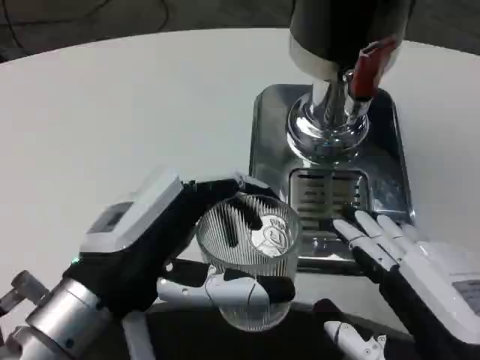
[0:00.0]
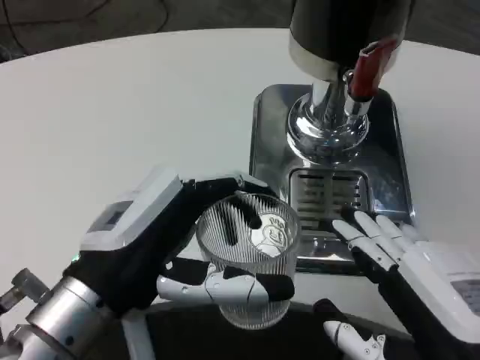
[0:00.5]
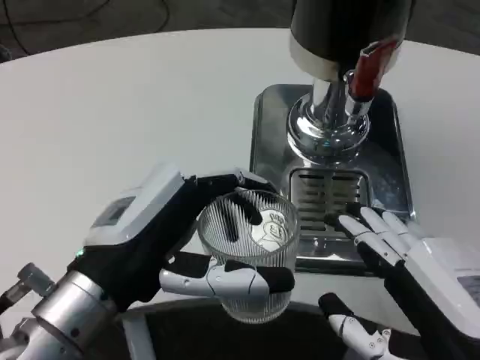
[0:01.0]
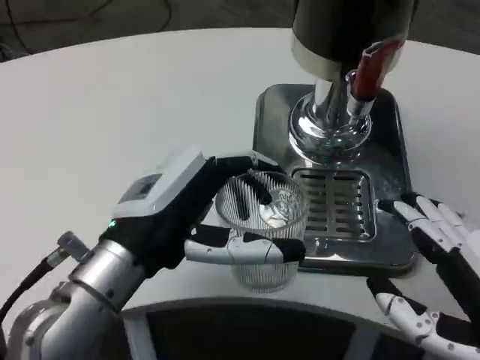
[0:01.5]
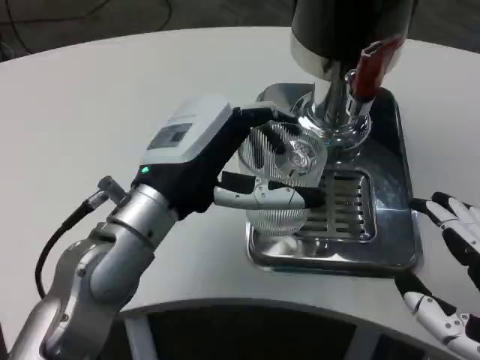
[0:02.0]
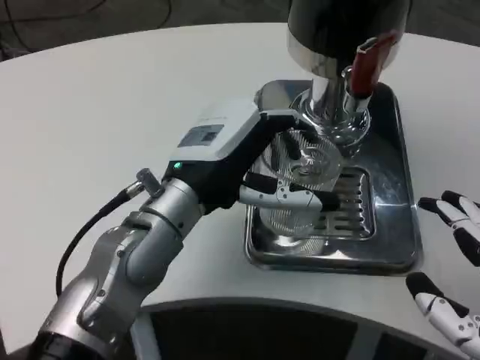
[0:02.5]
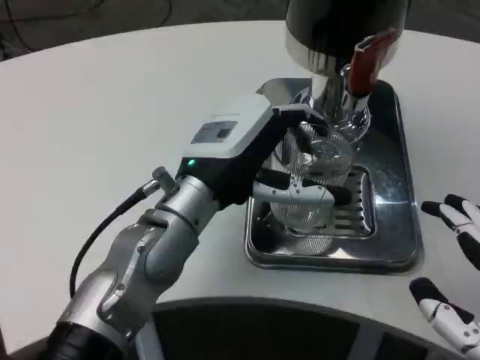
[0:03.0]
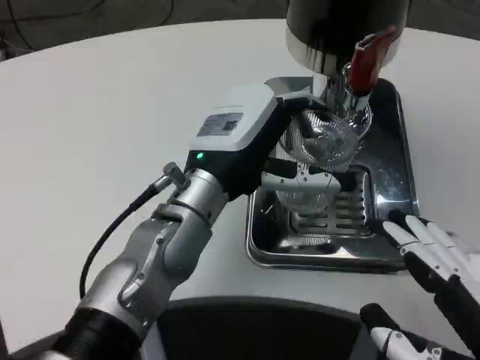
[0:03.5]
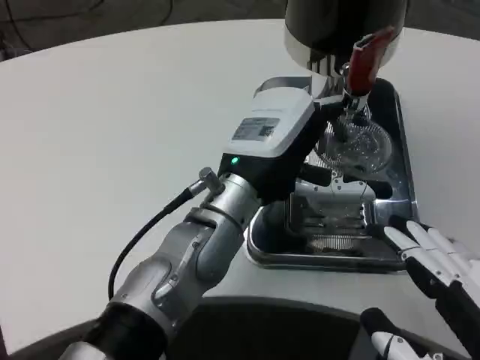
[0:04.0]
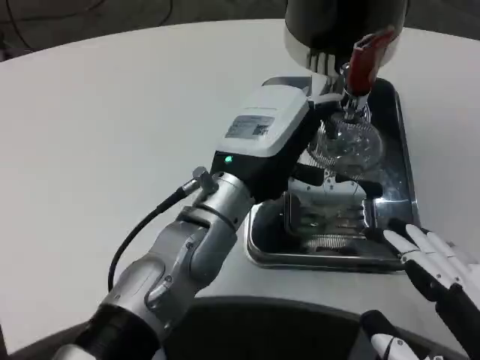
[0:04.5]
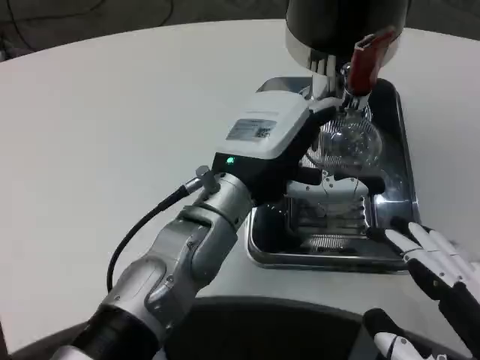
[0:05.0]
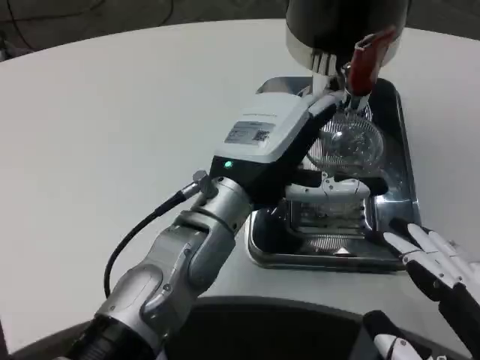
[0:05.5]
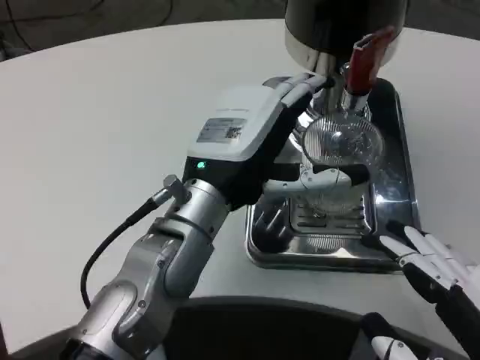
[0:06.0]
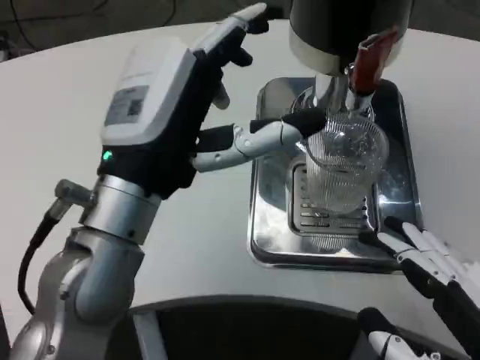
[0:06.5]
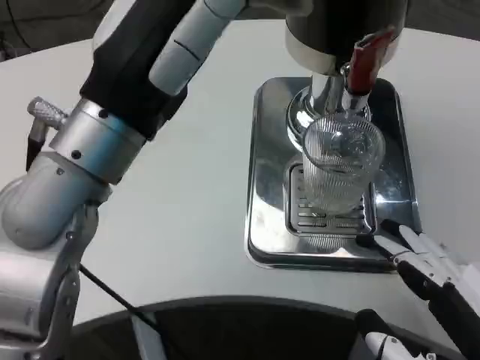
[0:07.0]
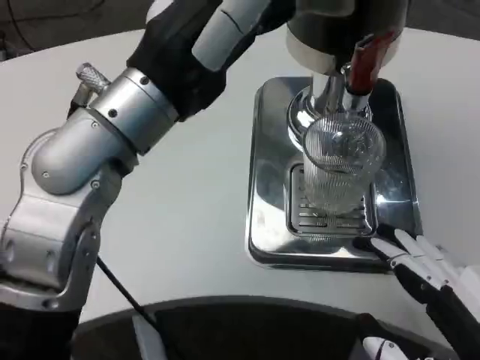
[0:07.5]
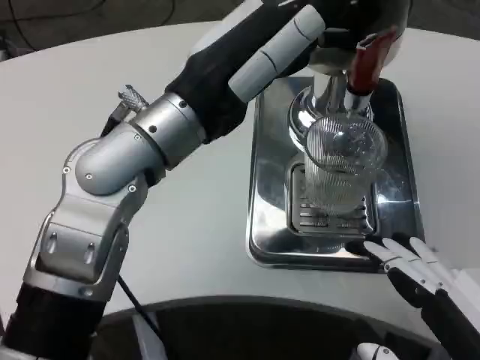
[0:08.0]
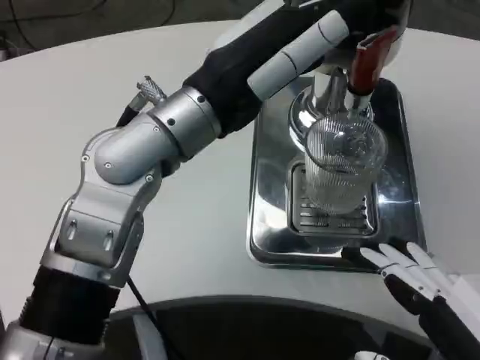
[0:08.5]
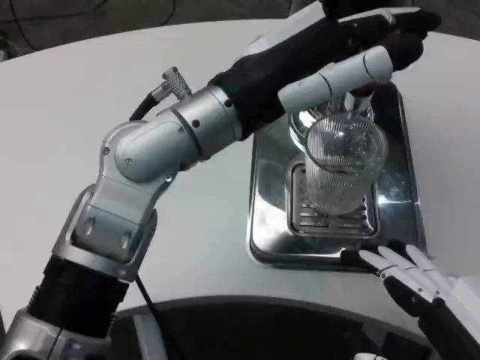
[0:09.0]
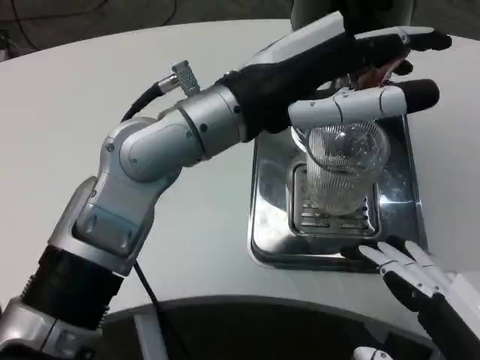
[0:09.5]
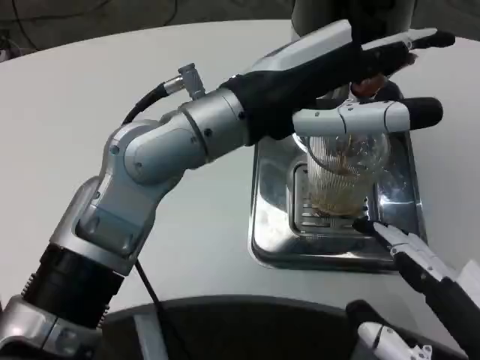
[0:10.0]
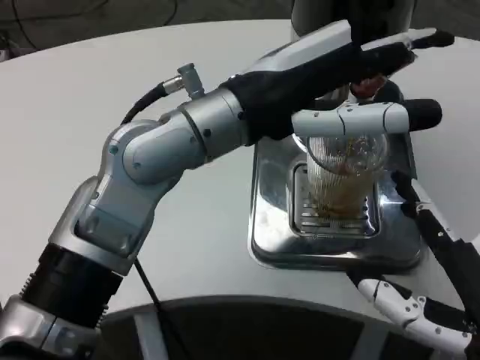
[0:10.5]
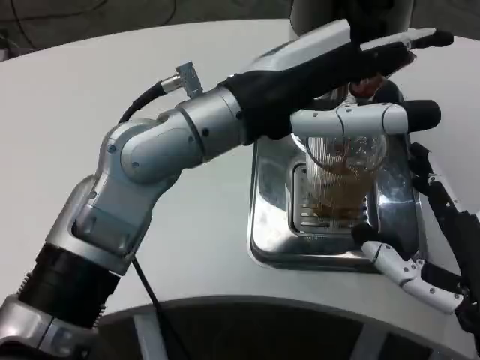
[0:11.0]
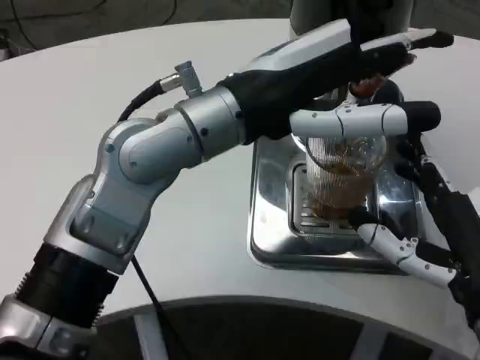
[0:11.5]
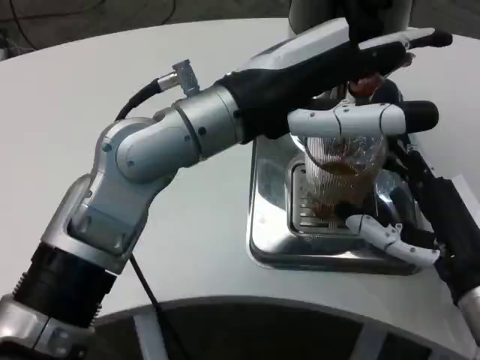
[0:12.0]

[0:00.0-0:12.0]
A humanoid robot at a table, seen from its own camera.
Task of the whole recording: Grasp the cup under the faucet to collect the drink, then remove the cup.
0:00.0 to 0:02.0: The left hand is displaced forward by some 10 cm.
0:02.0 to 0:04.0: The left hand is displaced to the right by about 5 cm.
0:06.0 to 0:08.0: The left hand travels upward by roughly 10 cm.
0:10.0 to 0:12.0: The right hand travels forward by approximately 15 cm.

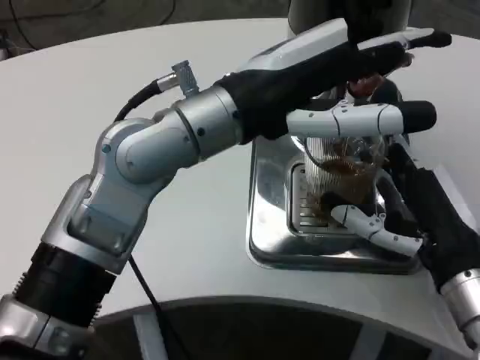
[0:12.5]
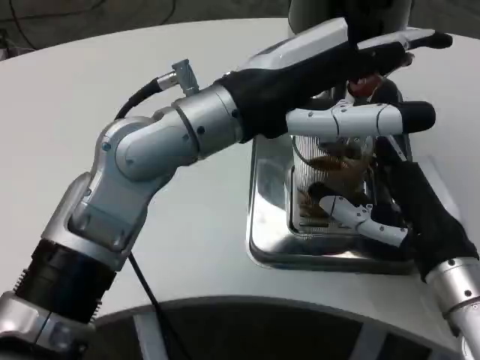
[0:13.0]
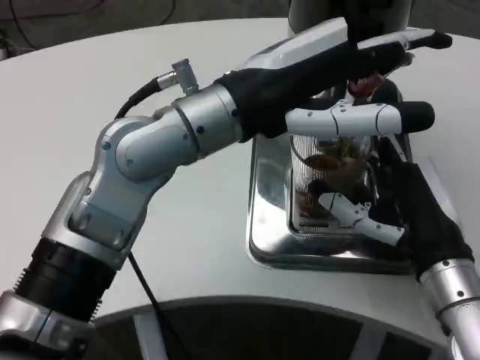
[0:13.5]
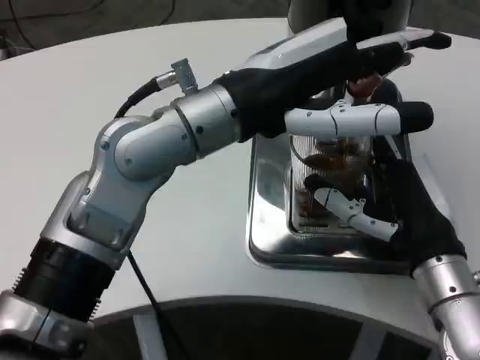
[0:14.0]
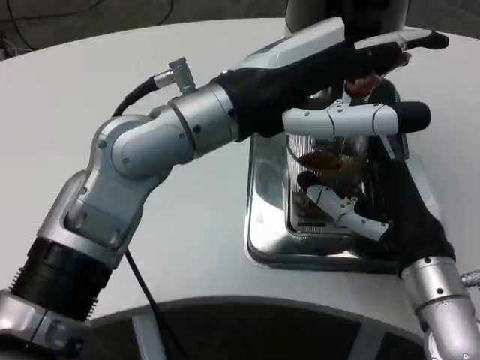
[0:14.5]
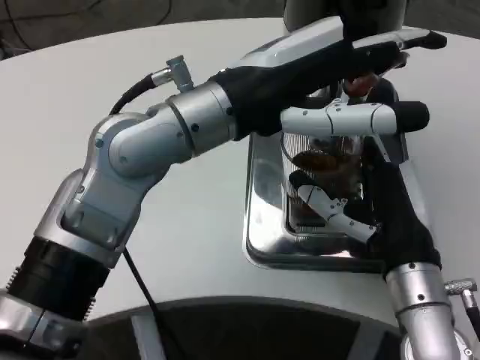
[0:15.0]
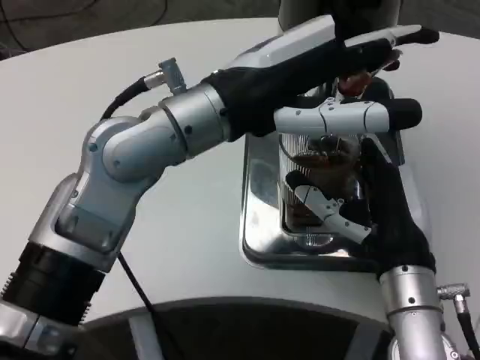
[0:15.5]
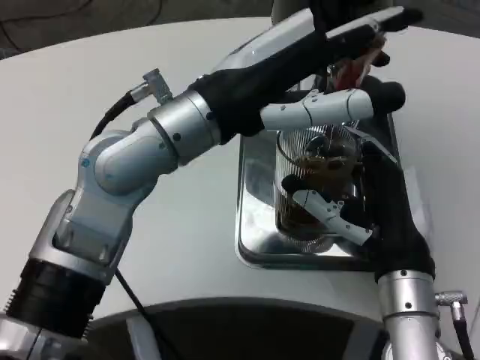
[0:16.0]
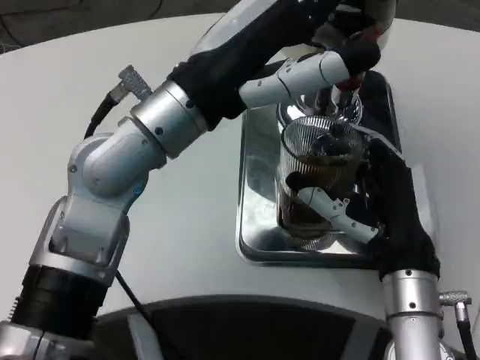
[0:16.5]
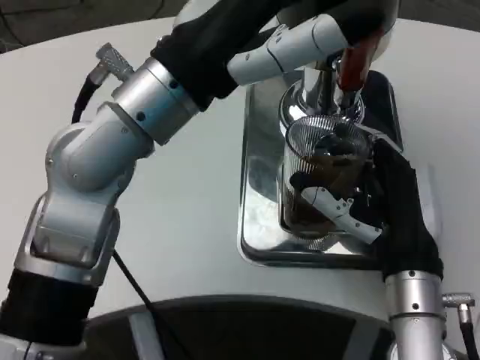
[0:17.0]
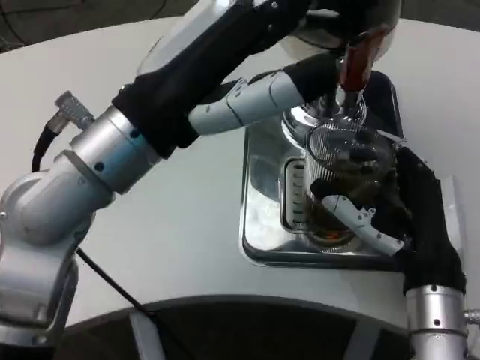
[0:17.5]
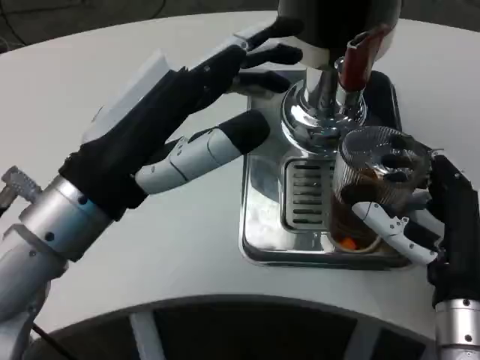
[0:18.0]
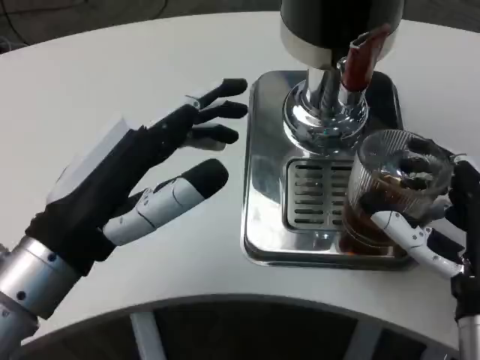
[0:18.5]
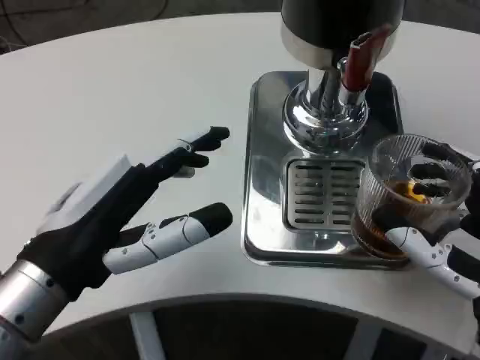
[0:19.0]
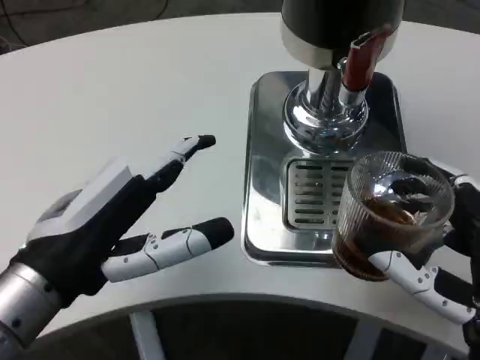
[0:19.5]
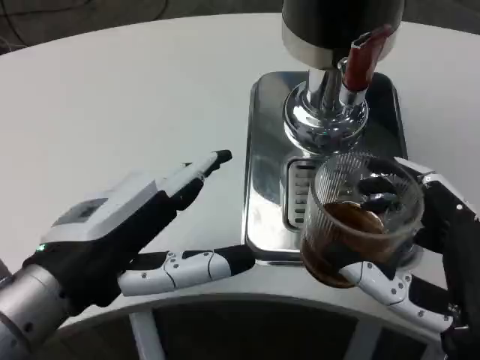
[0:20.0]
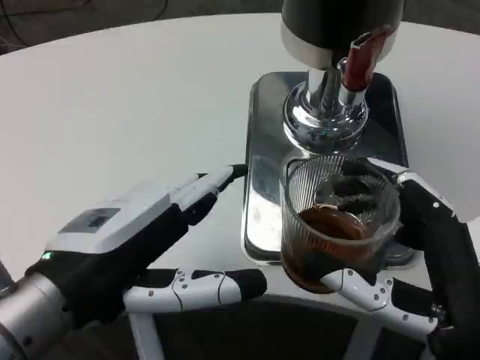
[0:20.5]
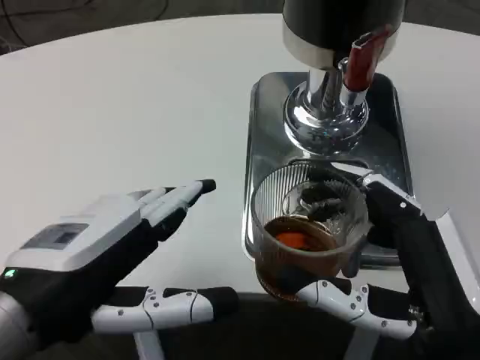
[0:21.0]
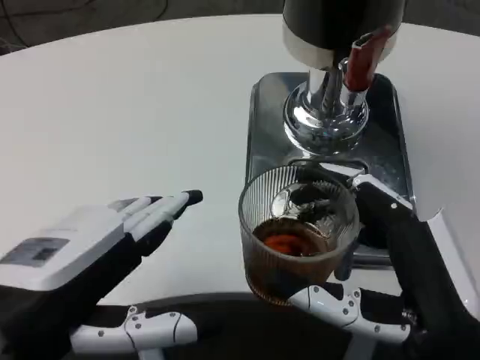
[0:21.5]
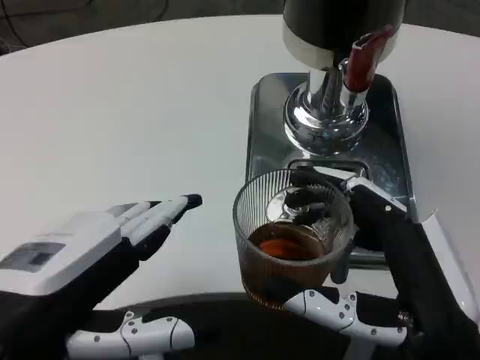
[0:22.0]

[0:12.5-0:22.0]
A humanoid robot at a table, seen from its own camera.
Task of the whole recording: Grasp the cup under the faucet to collect the drink, then remove the cup.
0:16.5 to 0:18.0: The left hand moves backward and to the left, about 10 cm.
0:18.0 to 0:20.0: The right hand travels backward by about 10 cm. The left hand moves roughly 5 cm.
0:20.0 to 0:22.0: The left hand is displaced backward by approximately 5 cm.

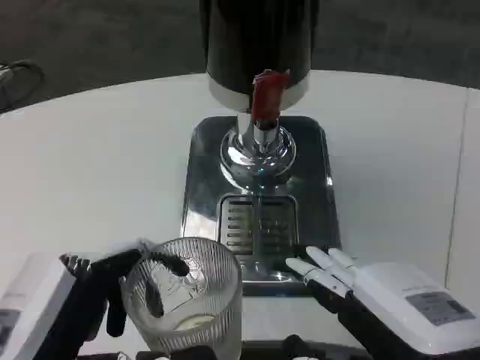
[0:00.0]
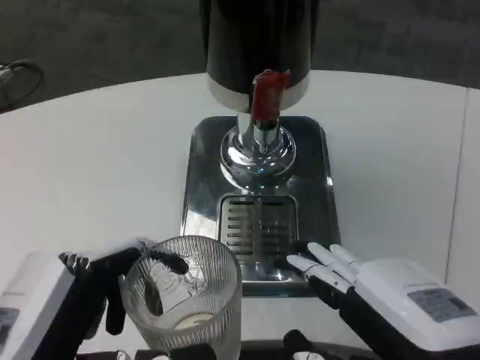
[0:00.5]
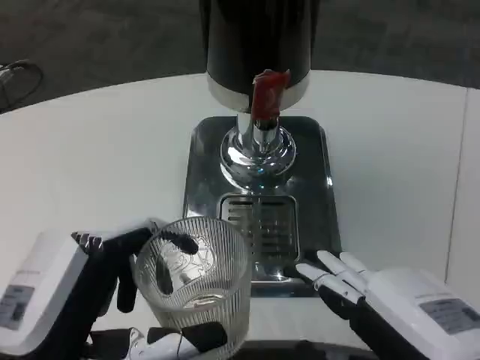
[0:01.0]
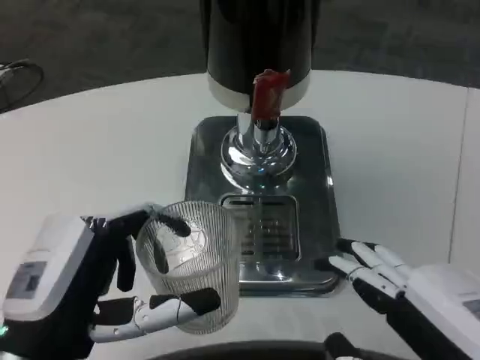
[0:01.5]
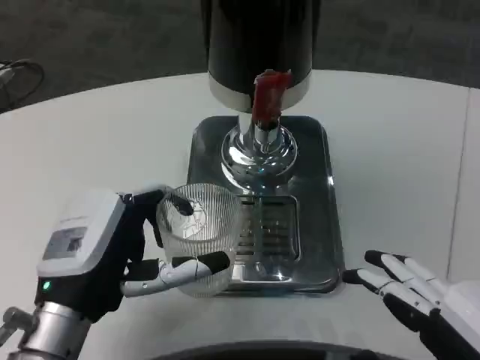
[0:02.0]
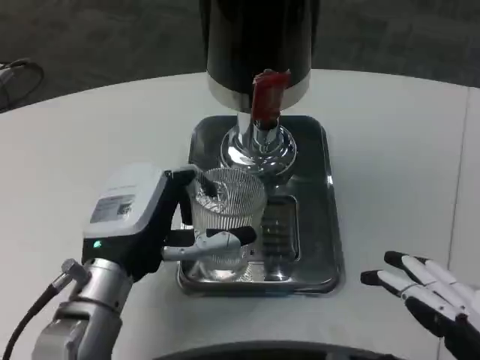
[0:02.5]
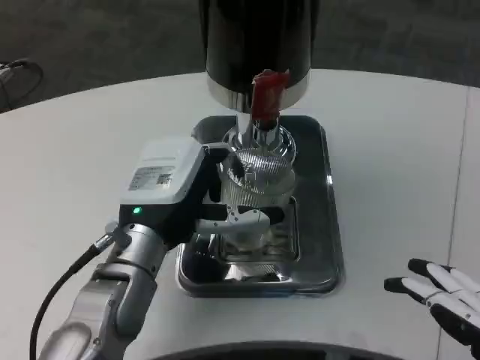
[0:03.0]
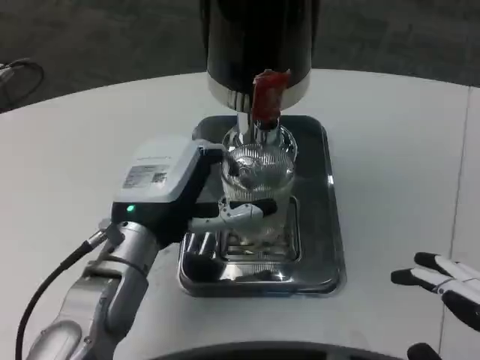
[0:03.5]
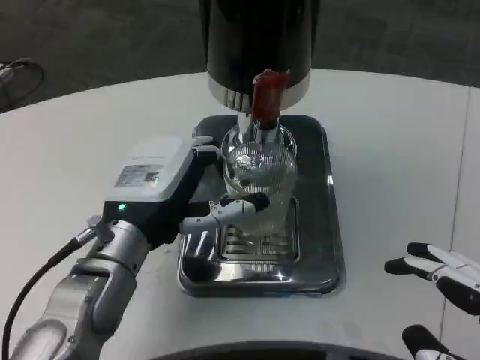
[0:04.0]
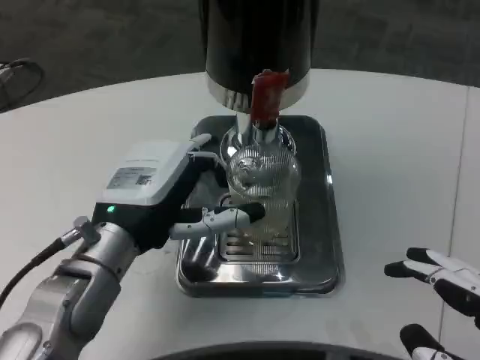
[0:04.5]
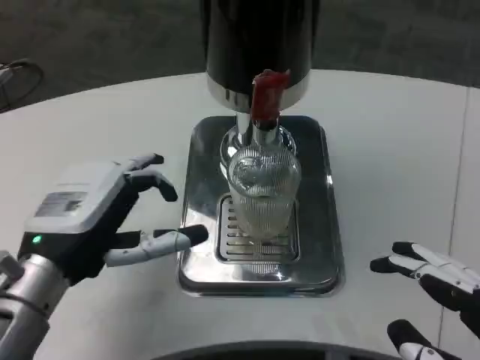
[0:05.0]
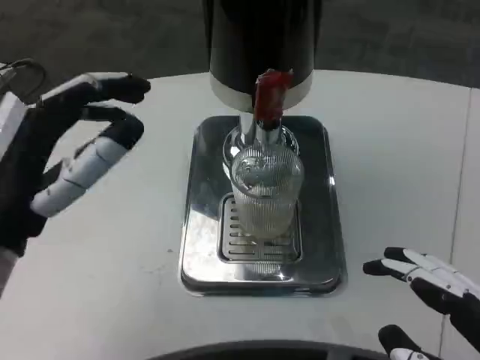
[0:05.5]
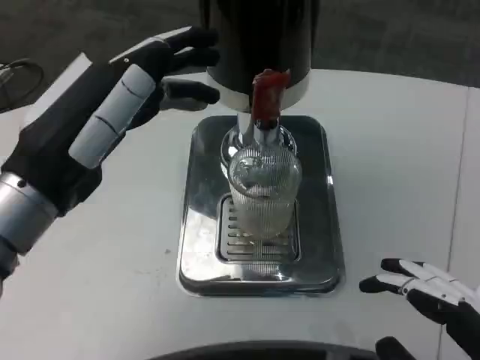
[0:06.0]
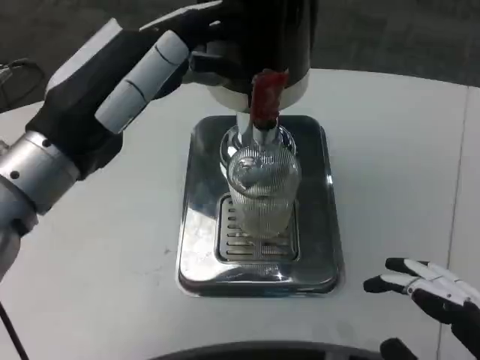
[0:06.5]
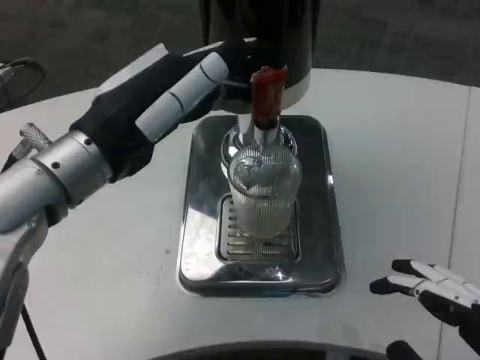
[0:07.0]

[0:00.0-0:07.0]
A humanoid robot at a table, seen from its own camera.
Task of the whole recording: Grasp the cup under the faucet to collect the drink, then remove the cup.
0:00.0 to 0:02.0: The right hand changes place by some 5 cm. Meanwhile the left hand shifts approximately 10 cm forward.
0:02.0 to 0:03.5: The left hand travels forward by some 5 cm.
0:03.5 to 0:05.0: The left hand goes about 10 cm to the left and backward.
0:05.0 to 0:07.0: The left hand moves upward, approximately 10 cm.
